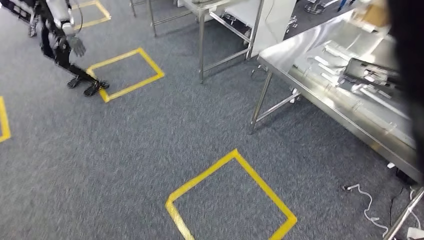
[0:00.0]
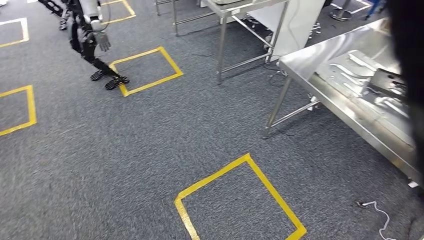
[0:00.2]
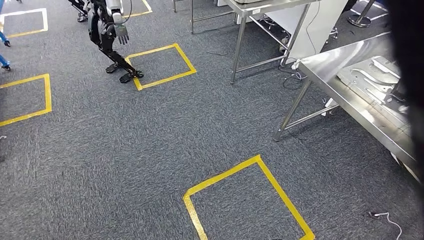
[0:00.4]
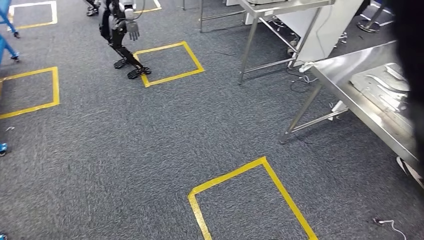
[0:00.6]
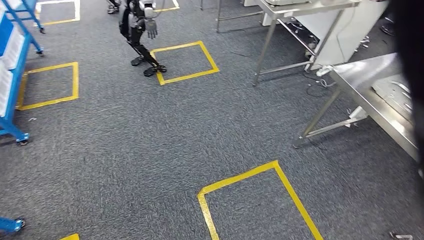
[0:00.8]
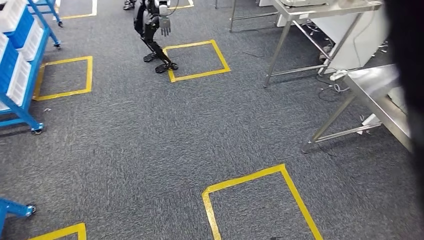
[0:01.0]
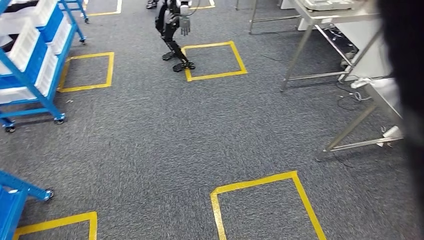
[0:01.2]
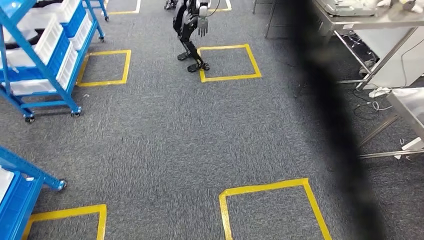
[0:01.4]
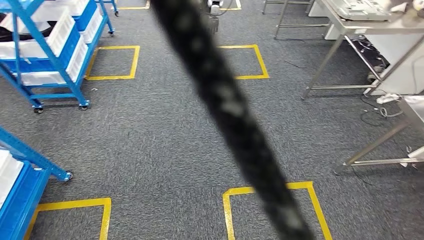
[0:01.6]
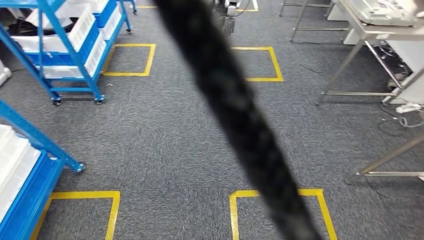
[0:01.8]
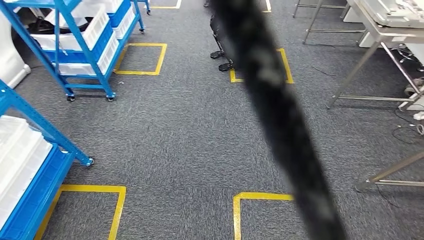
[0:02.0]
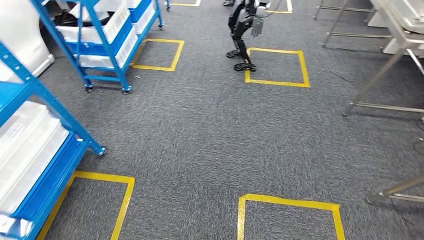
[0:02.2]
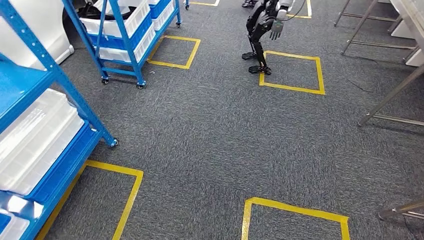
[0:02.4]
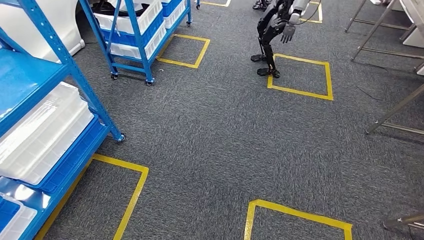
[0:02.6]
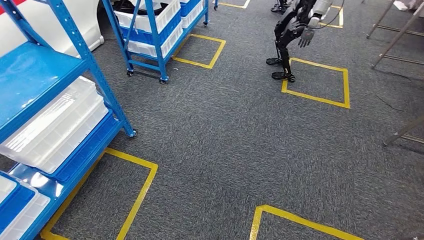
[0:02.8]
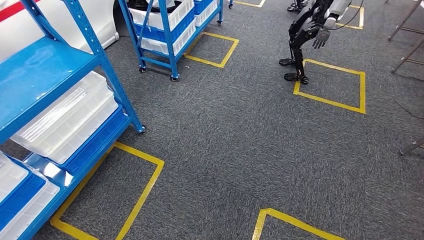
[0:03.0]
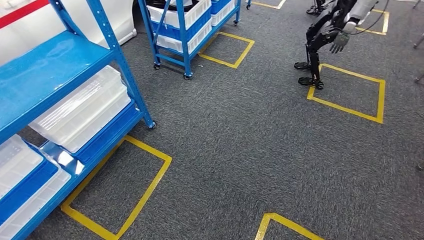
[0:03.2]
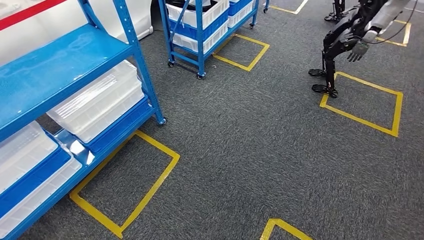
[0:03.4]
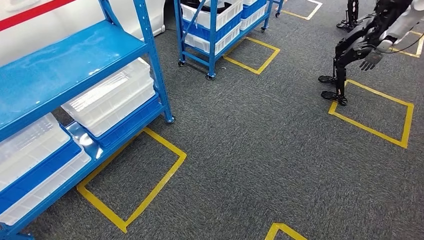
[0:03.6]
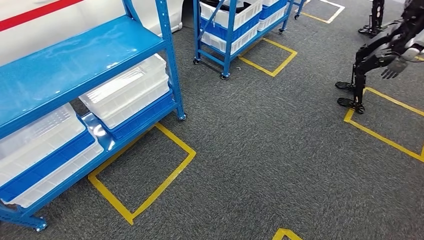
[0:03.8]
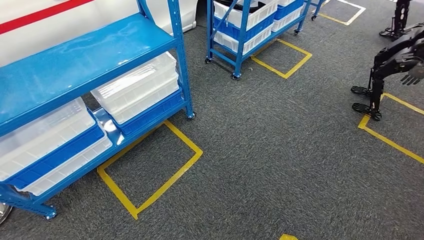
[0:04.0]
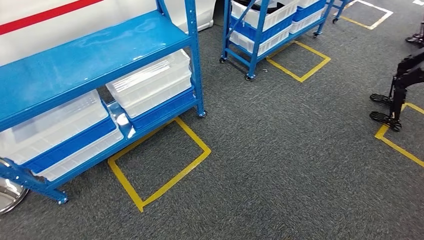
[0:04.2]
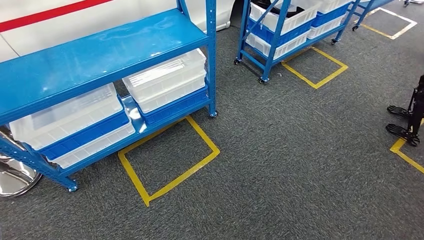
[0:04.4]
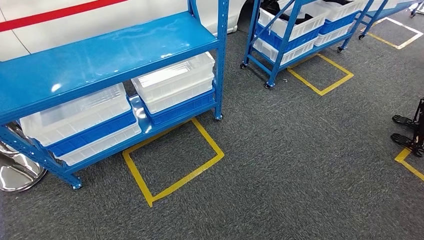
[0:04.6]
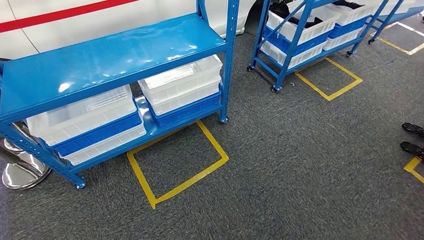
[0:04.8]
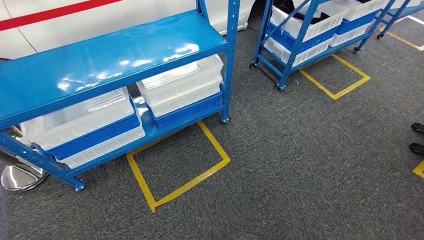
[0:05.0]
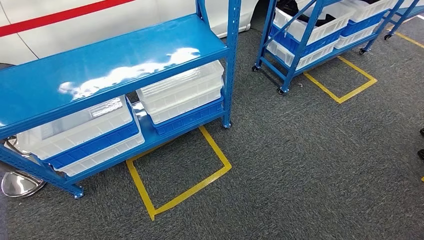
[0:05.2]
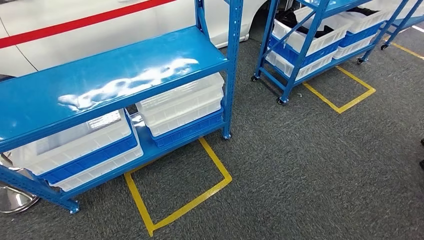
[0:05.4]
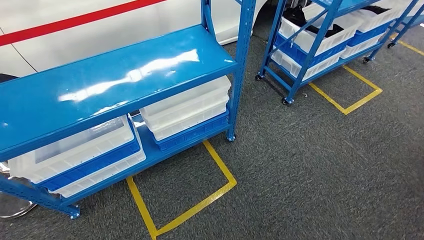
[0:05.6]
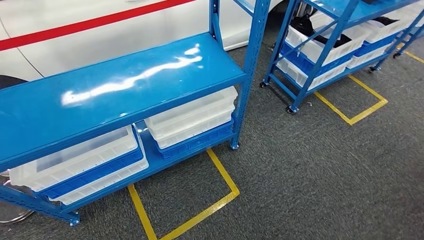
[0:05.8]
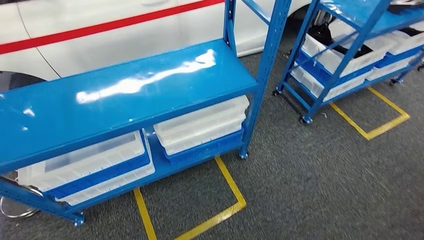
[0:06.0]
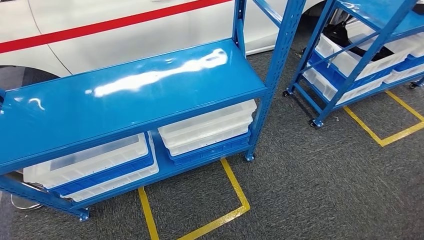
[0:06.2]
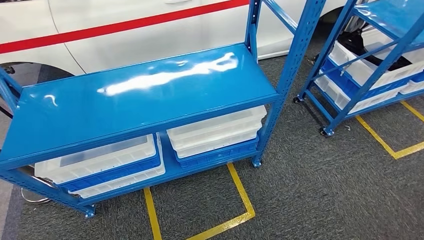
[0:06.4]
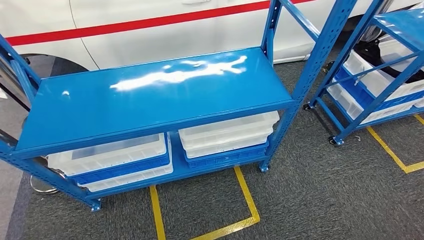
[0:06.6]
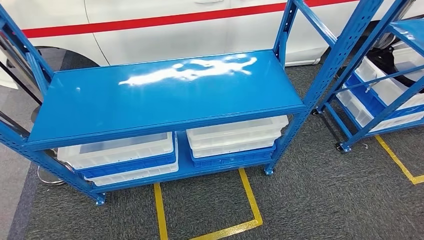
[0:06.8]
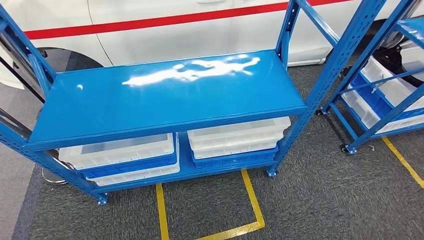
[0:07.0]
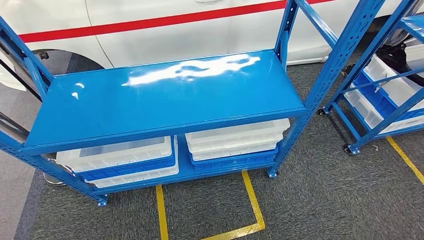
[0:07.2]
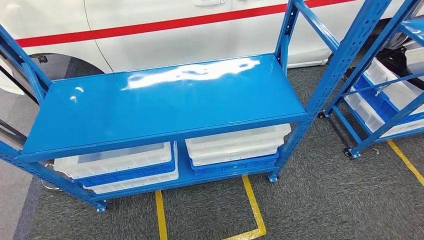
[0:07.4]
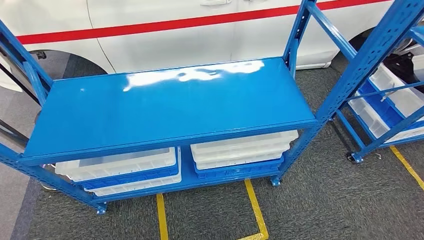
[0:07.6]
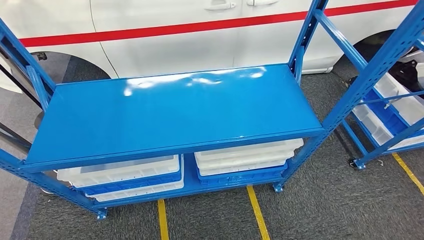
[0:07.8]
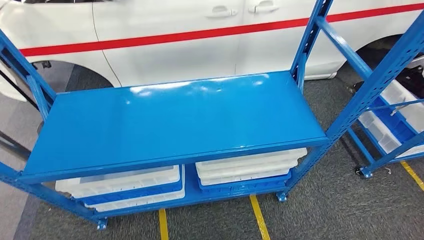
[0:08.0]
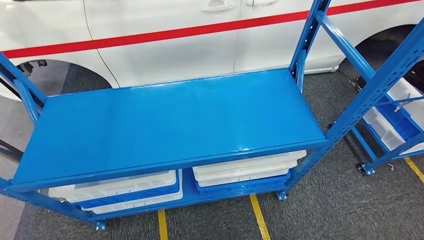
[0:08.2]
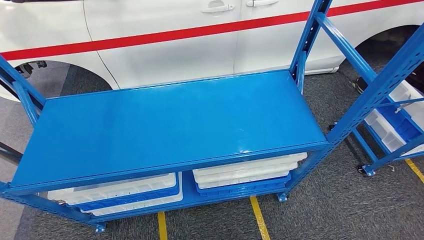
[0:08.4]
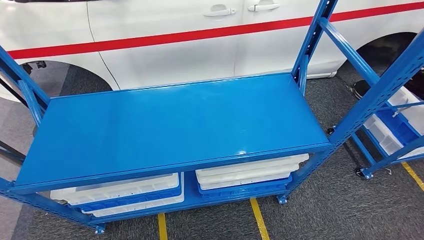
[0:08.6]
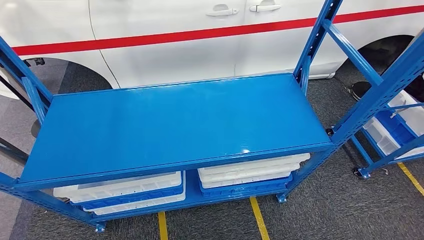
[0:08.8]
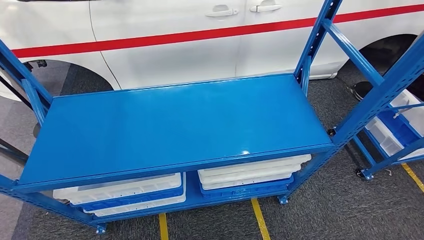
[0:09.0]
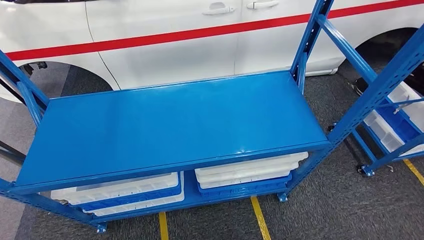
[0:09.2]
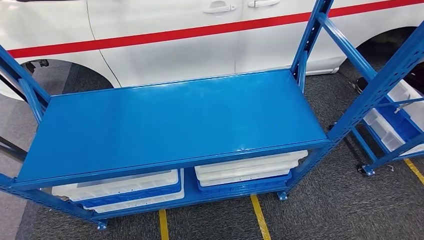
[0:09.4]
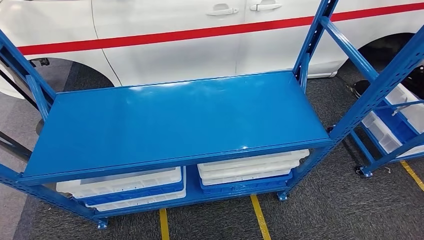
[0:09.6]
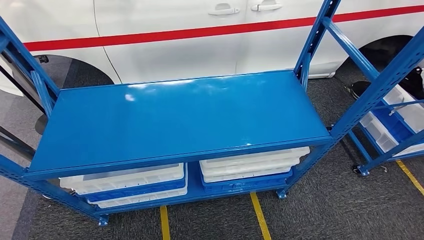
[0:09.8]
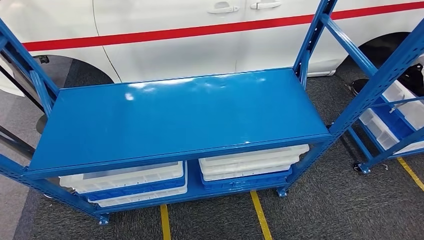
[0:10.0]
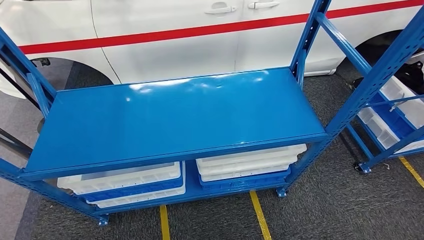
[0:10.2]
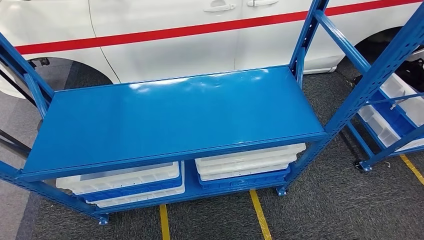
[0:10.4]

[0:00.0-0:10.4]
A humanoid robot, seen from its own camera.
Step, 0:00.0 to 0:10.4: Move to the initial position of the shelf.
